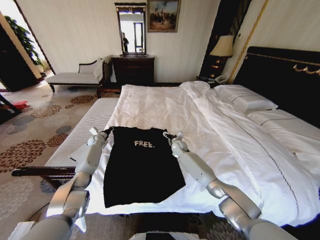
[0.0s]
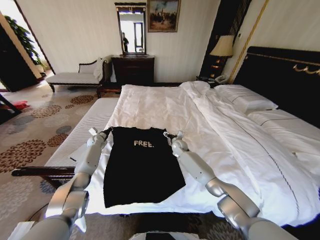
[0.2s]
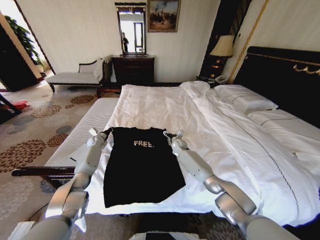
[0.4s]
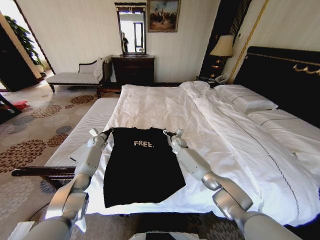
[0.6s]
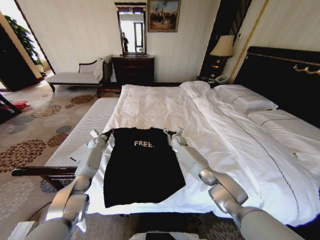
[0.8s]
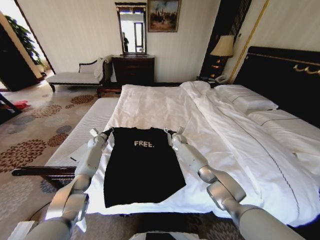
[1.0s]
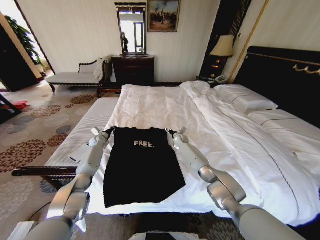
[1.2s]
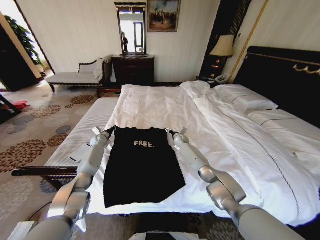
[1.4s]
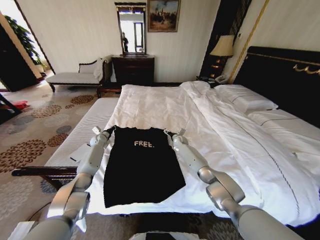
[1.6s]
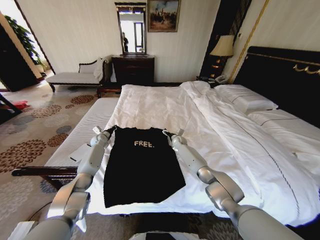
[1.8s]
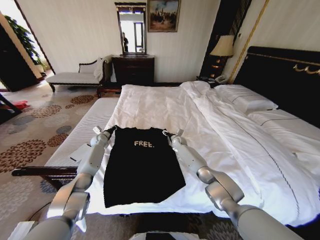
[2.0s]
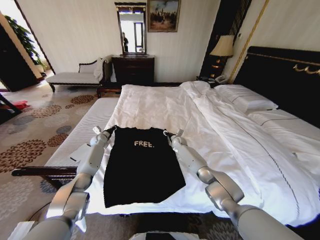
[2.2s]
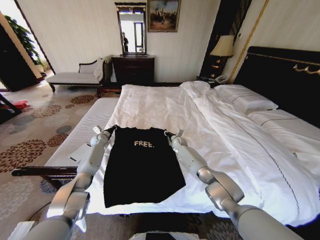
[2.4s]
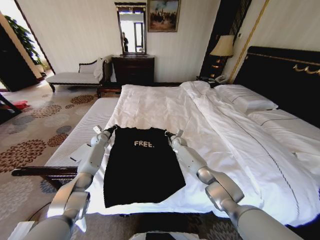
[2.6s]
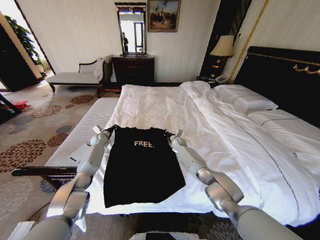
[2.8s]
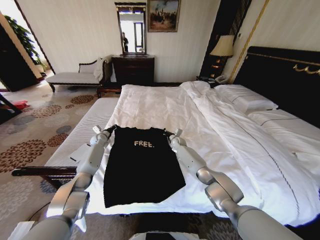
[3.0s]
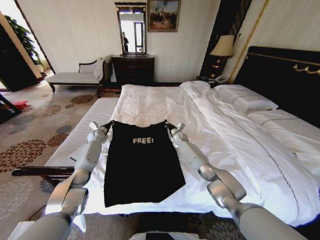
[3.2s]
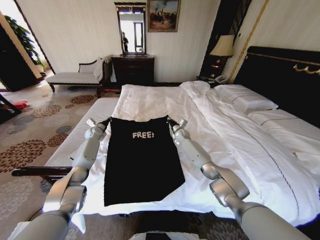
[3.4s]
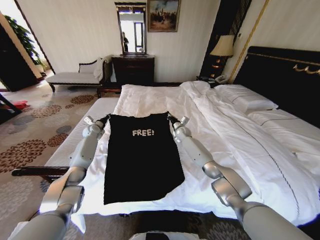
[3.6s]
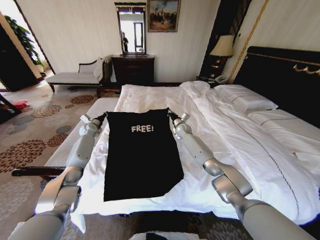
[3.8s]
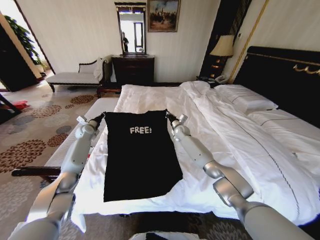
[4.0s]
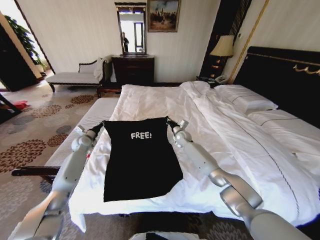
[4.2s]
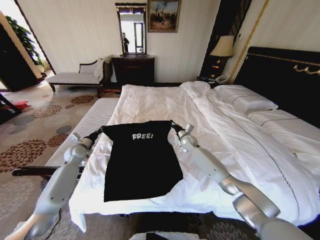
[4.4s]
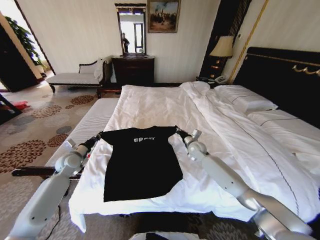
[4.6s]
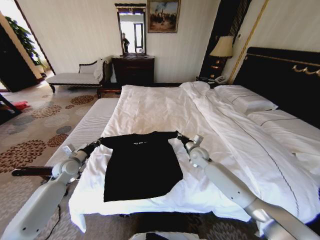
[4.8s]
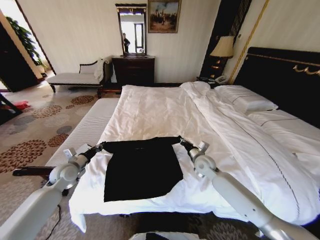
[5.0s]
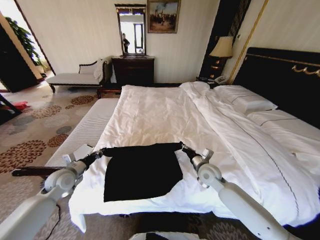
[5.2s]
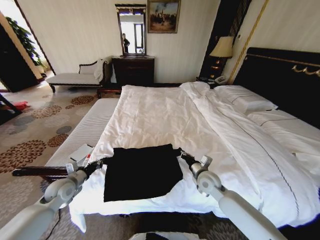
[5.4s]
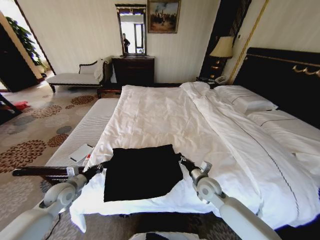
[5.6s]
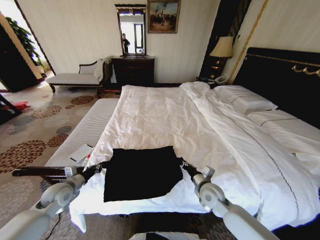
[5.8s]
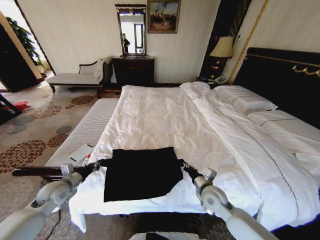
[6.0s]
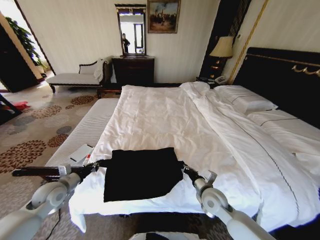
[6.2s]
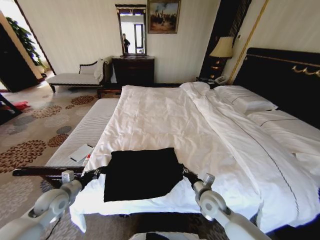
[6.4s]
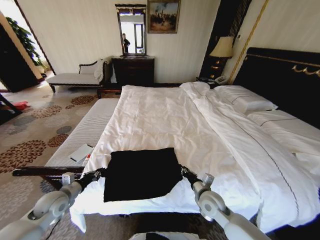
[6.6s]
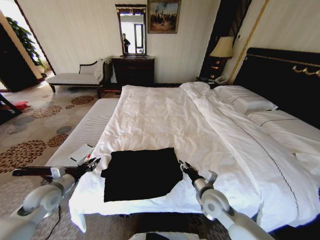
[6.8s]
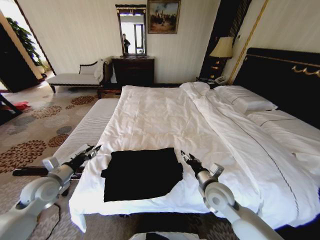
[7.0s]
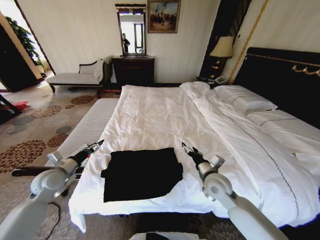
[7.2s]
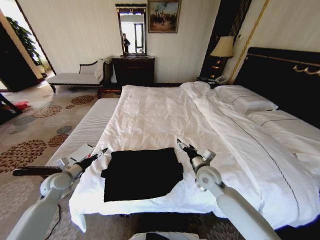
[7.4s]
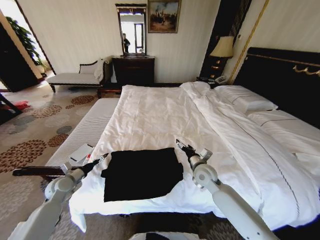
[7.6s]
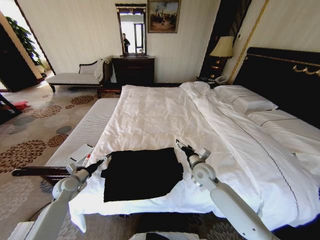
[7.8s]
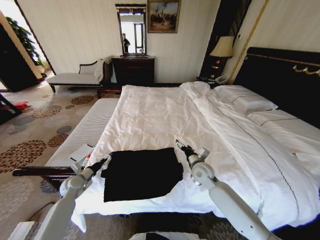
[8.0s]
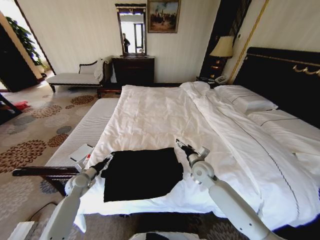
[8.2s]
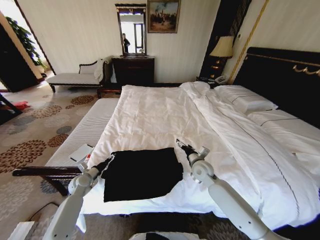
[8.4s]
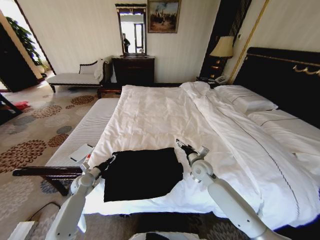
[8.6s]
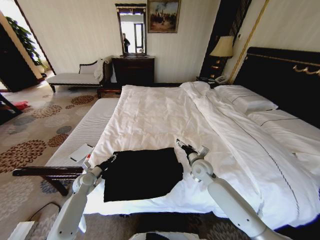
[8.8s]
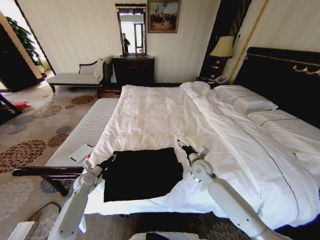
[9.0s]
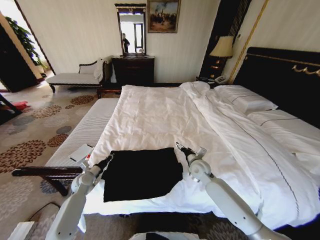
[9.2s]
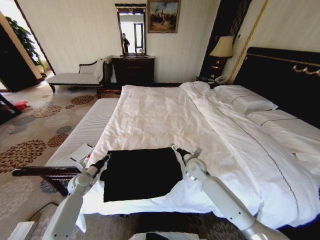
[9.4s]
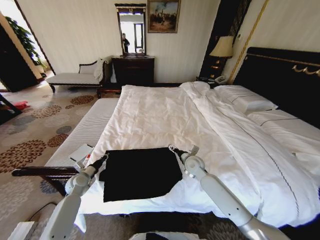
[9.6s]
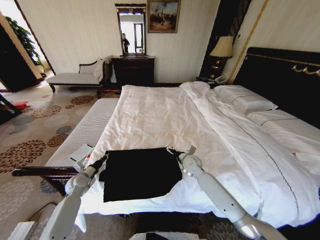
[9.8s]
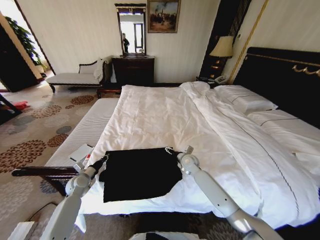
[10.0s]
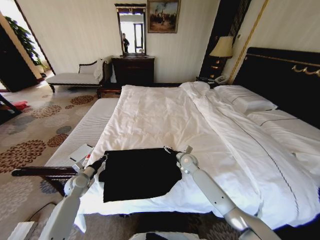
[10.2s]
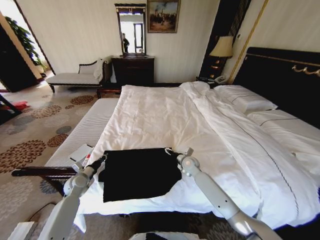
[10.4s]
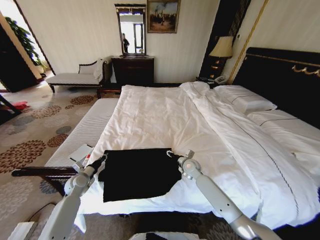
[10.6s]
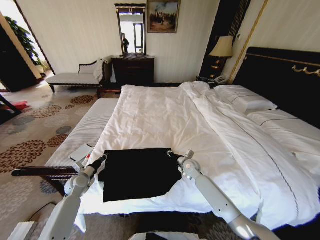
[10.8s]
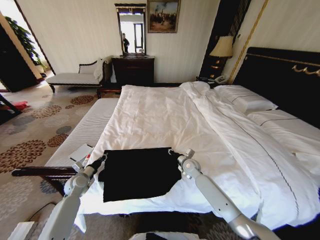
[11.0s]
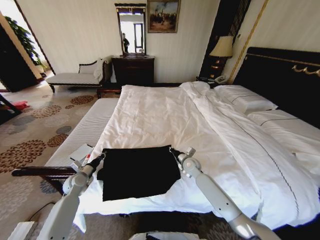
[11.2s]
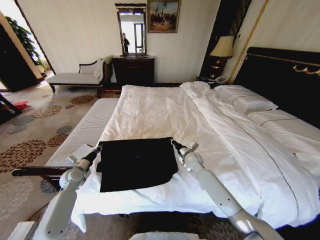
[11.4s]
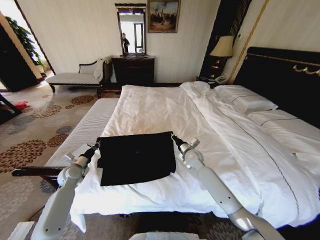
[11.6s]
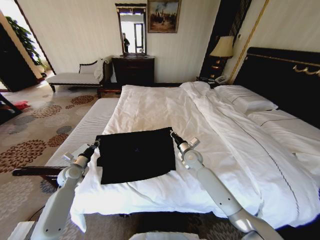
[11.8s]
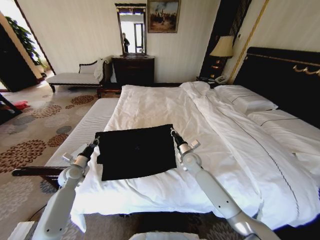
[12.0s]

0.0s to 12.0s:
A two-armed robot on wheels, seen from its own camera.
Task of the whole recording: Fold the clothes on the bed.
0.0s to 1.6s: The right gripper heads forward, covering some 5 cm.
1.6s to 3.0s: The right gripper closes.
3.0s to 4.4s: The left gripper is displaced backward by about 15 cm; the right gripper shifts about 10 cm upward and backward.
4.4s to 6.0s: The left gripper is displaced backward by some 20 cm. Meanwhile the right gripper travels backward by approximately 30 cm.
6.0s to 7.6s: The right gripper goes about 10 cm forward, and opens its fingers; the left gripper moves approximately 5 cm, and opens its fingers.
7.6s to 9.0s: The left gripper travels downward and to the right by roughly 10 cm, and closes up.
9.0s to 10.4s: The right gripper travels forward and downward by some 10 cm.
10.4s to 12.0s: The left gripper ends up some 5 cm from where it was; the right gripper closes.

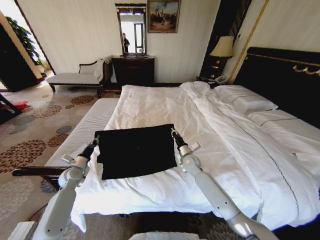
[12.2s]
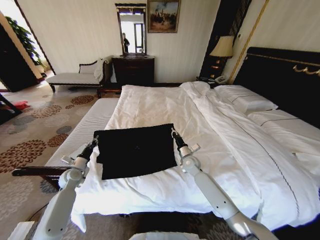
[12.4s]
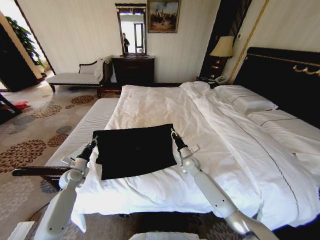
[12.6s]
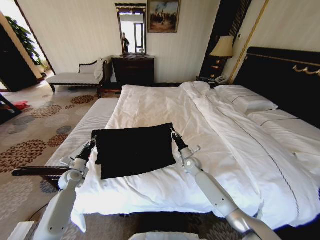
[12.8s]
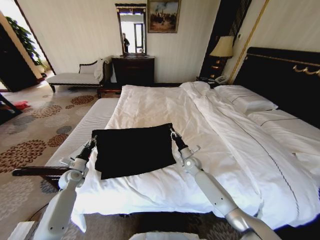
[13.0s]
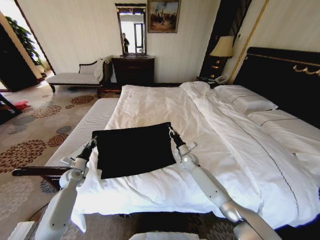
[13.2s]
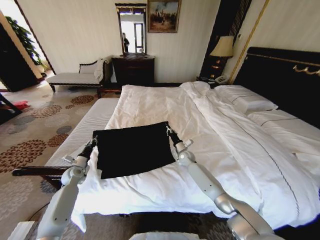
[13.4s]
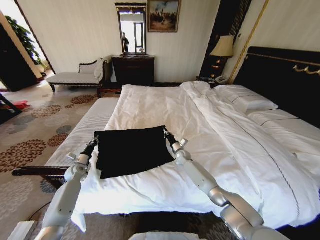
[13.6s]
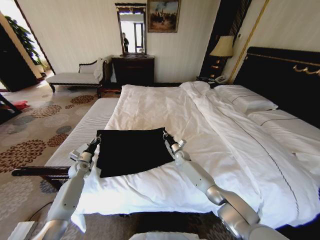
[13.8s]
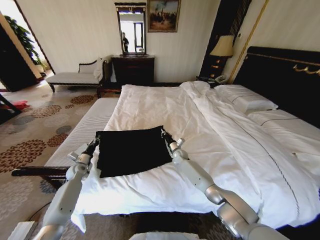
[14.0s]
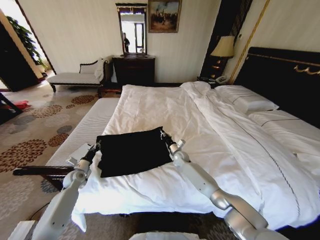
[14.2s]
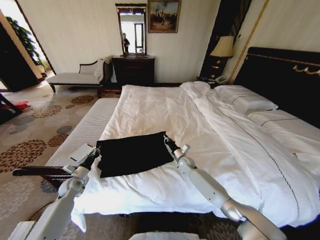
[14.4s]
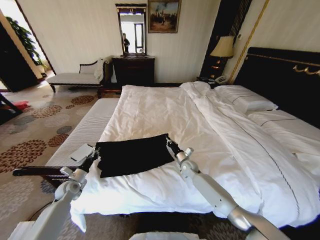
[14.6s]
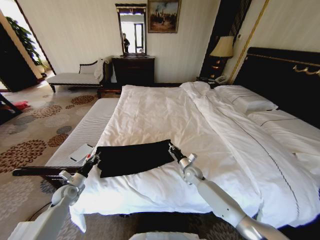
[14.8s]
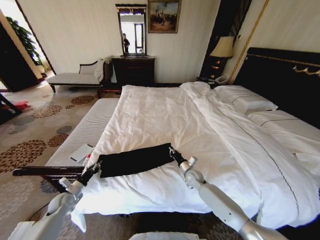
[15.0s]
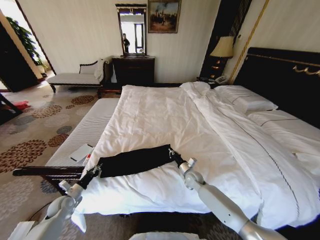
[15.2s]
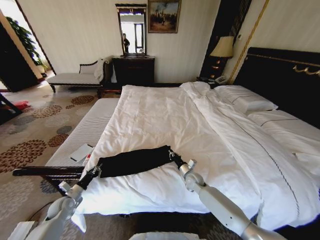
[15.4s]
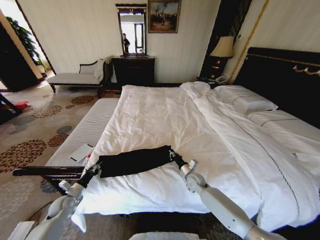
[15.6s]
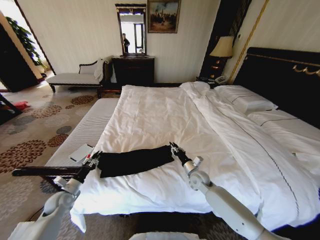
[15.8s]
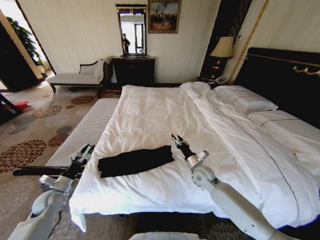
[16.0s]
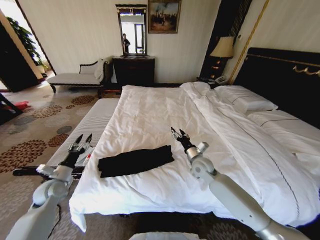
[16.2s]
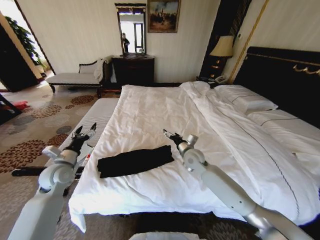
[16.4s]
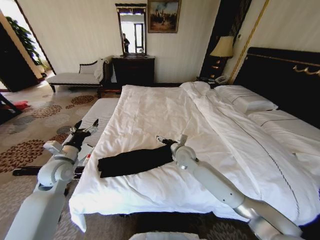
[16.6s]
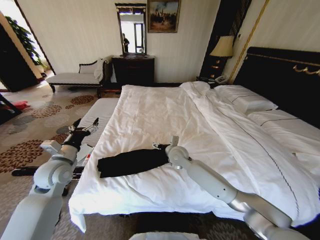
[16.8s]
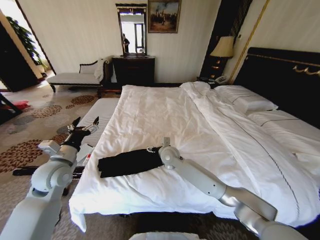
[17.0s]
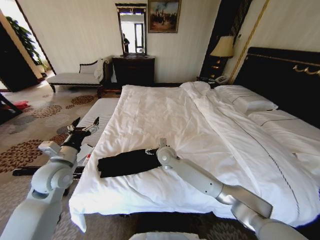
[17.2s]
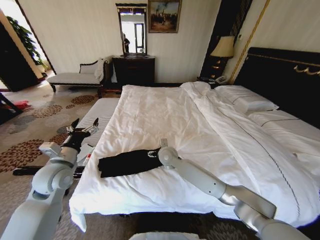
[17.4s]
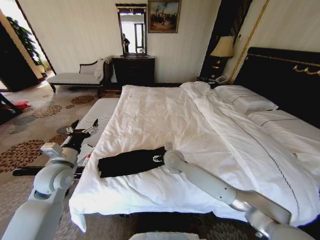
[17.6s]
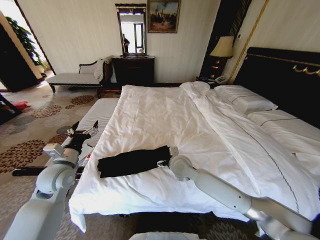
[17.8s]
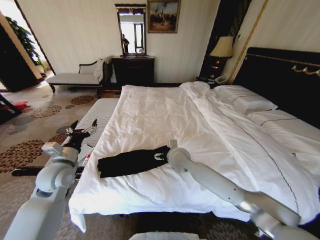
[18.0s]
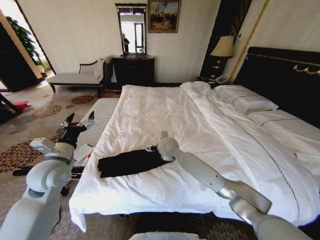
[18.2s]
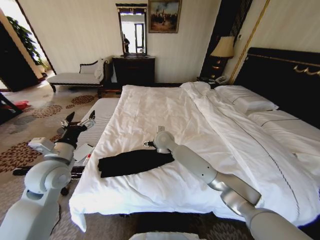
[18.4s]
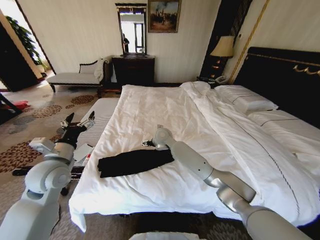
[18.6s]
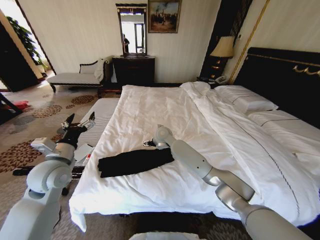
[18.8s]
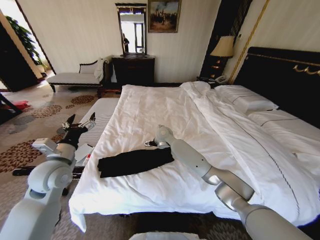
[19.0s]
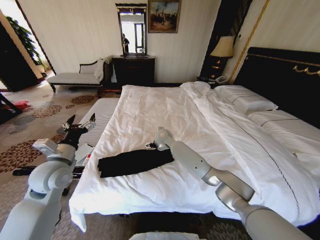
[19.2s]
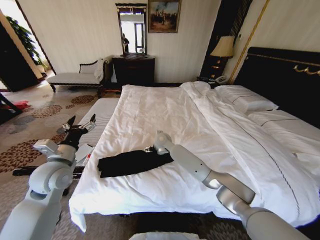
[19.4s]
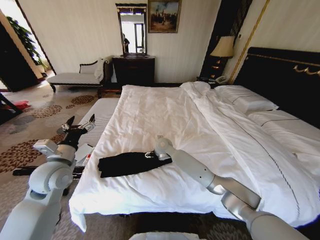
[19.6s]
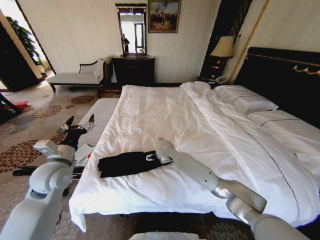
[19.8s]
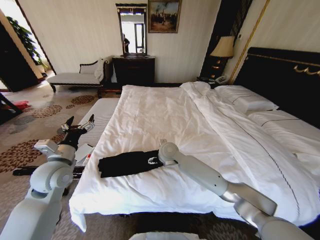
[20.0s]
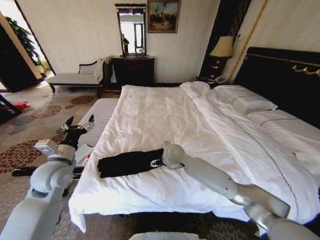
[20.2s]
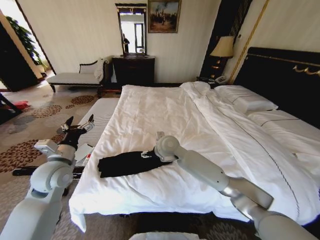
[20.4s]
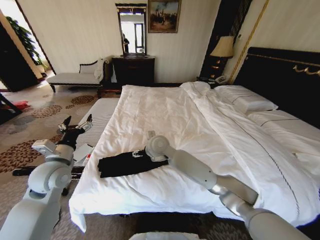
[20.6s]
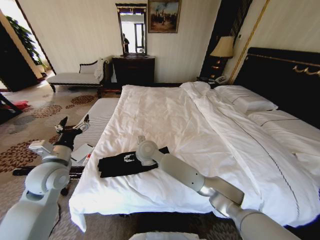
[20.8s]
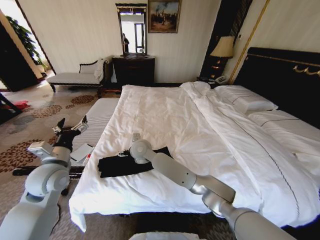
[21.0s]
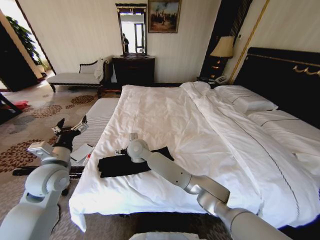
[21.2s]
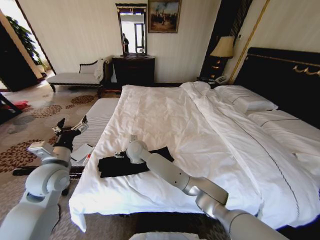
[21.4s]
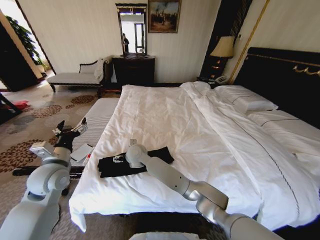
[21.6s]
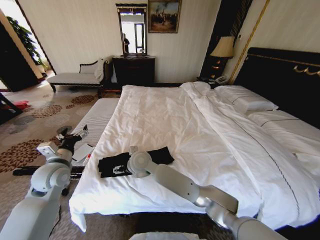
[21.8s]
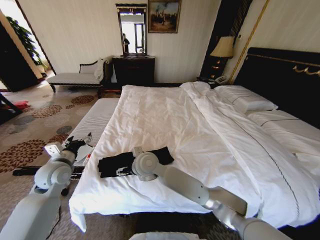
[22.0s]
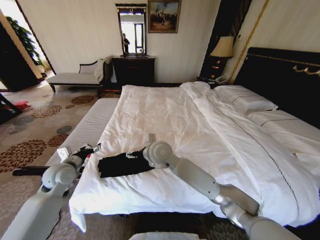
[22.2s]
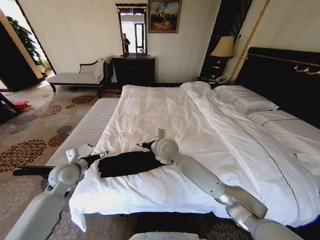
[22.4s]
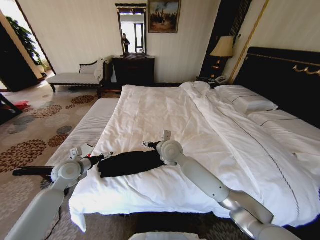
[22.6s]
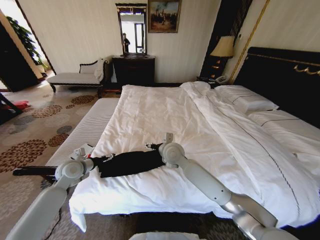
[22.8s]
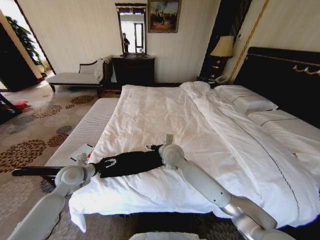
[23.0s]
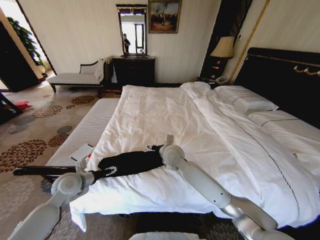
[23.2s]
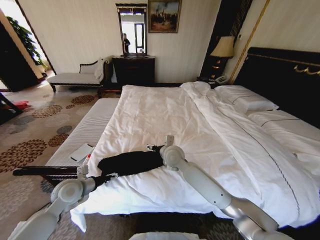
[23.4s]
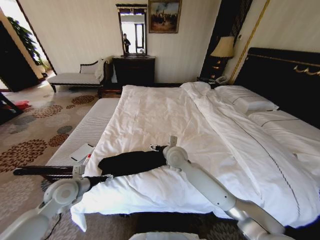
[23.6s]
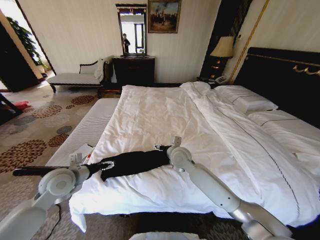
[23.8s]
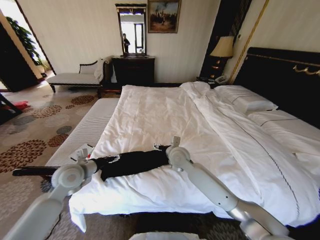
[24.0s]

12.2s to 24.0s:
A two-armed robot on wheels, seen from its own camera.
Task of the whole recording: Fold the clothes on the bed.
12.2s to 13.6s: The right gripper travels forward and downward by some 10 cm; the left gripper ends up approximately 5 cm from where it was.
13.6s to 15.2s: Both grippers move backward, approximately 15 cm.
15.2s to 16.6s: The right gripper moves upward and to the left, about 20 cm, and opens, while the left gripper shifts about 25 cm upward, and opens up.
16.6s to 18.2s: The right gripper moves left and right over about 10 cm, changing direction 2 times; the left gripper heads upward, covering roughly 5 cm.
18.2s to 19.6s: The right gripper shifts by approximately 5 cm.
19.6s to 21.0s: The right gripper moves to the left, backward and upward, some 15 cm.
21.0s to 22.6s: The left gripper is displaced downward and forward by approximately 10 cm; the right gripper is displaced to the right by roughly 15 cm.
22.6s to 24.0s: The left gripper moves roughly 5 cm backward and comes back. The right gripper shifts by roughly 5 cm.
